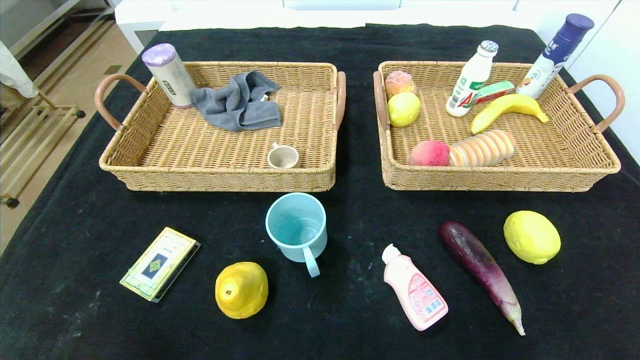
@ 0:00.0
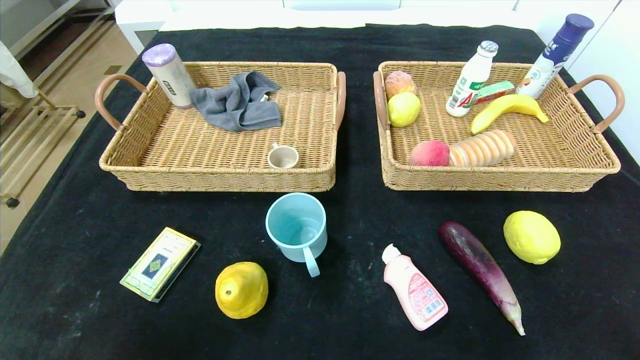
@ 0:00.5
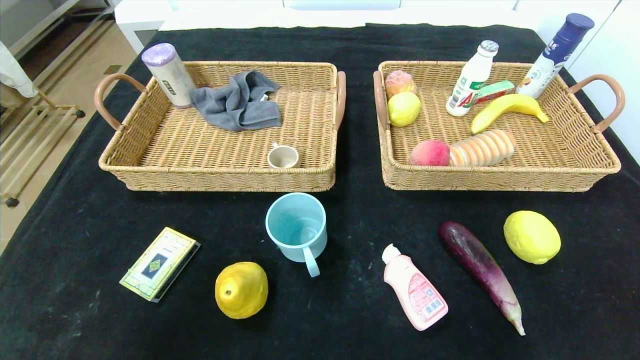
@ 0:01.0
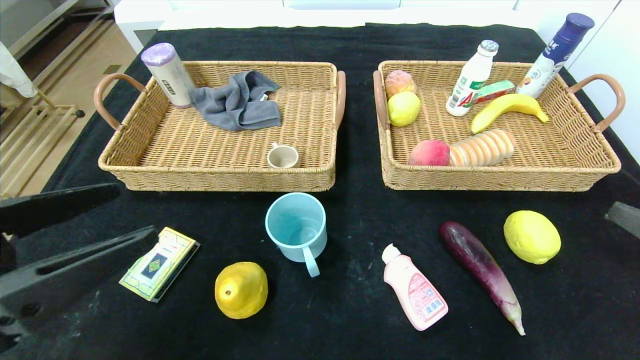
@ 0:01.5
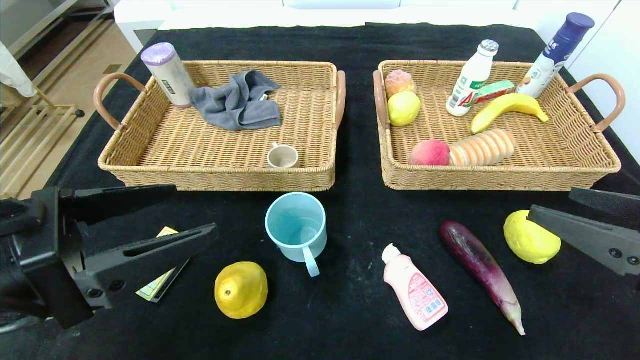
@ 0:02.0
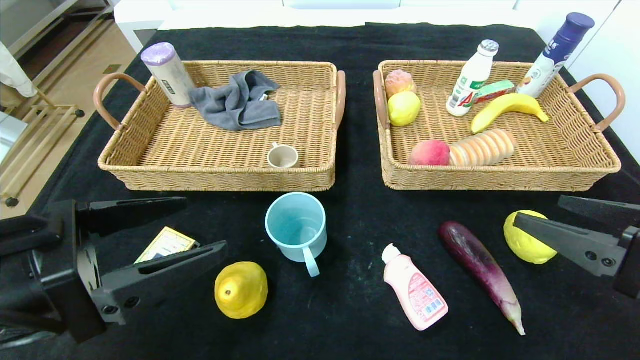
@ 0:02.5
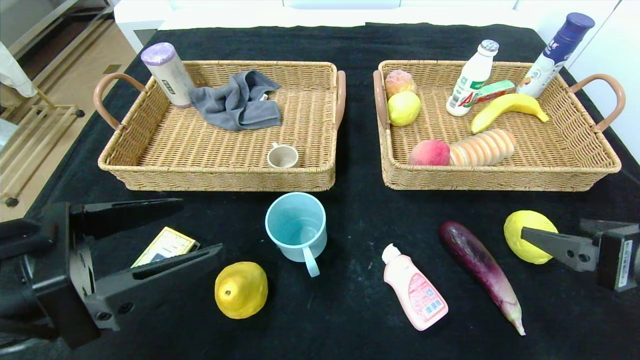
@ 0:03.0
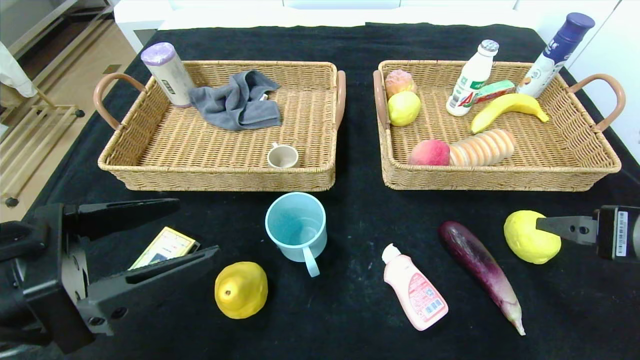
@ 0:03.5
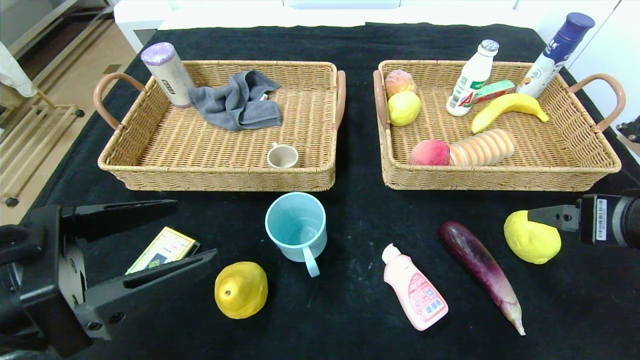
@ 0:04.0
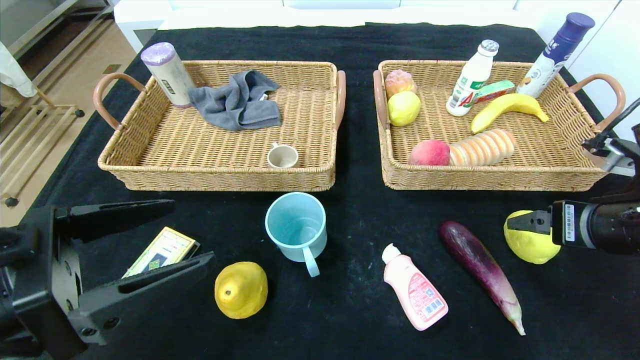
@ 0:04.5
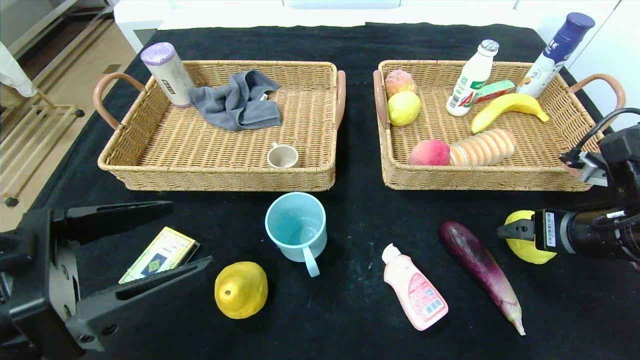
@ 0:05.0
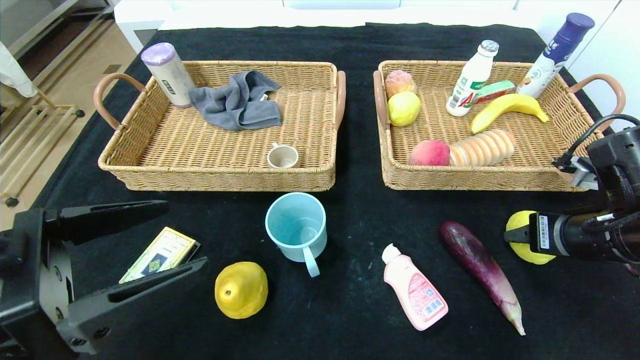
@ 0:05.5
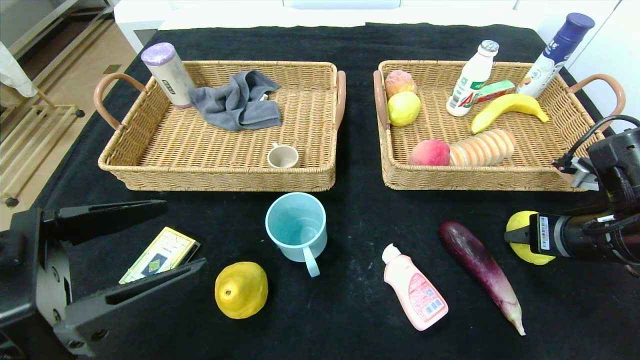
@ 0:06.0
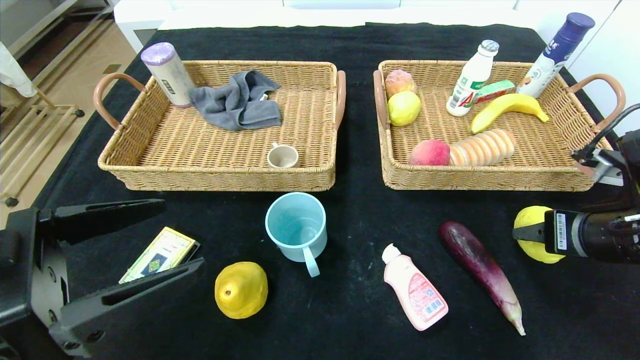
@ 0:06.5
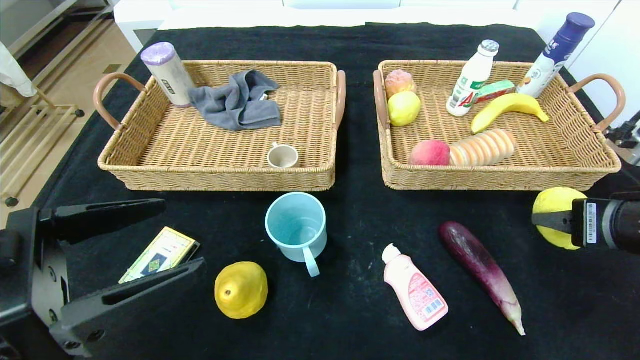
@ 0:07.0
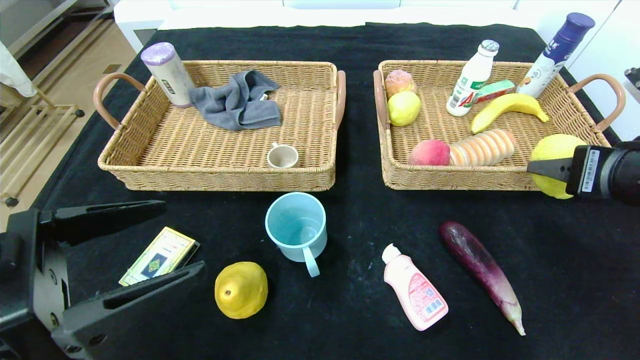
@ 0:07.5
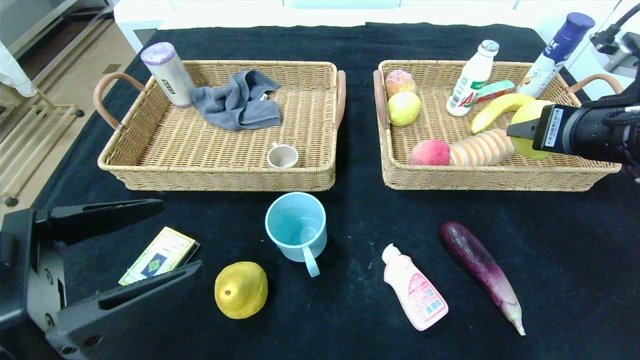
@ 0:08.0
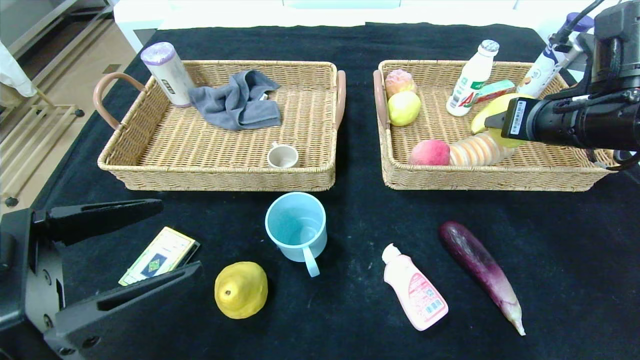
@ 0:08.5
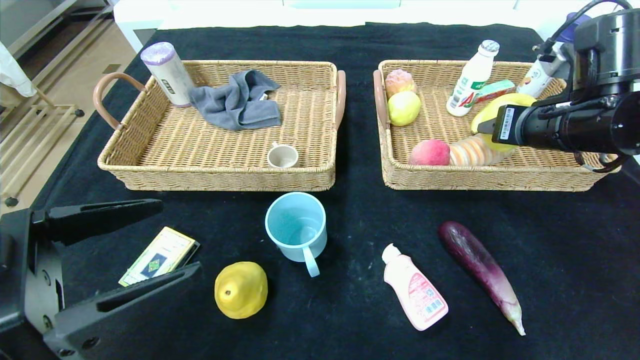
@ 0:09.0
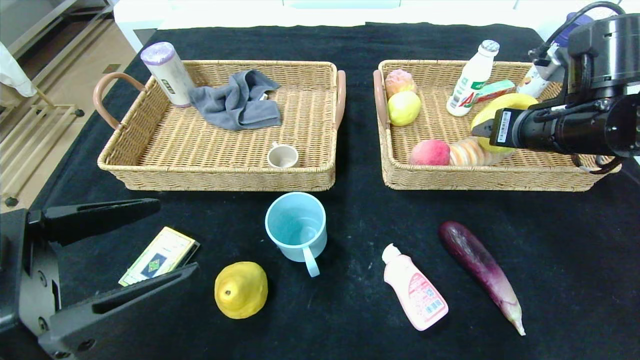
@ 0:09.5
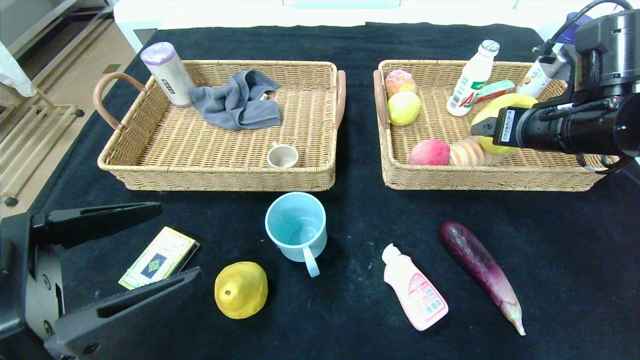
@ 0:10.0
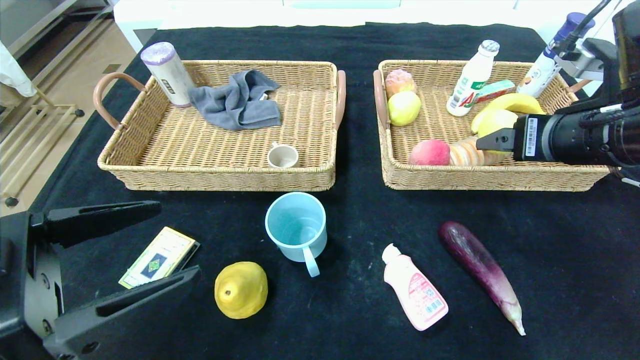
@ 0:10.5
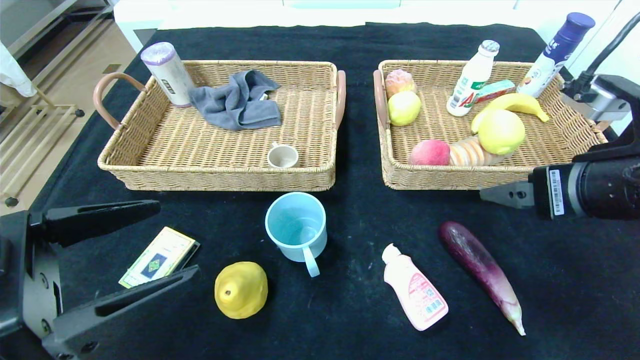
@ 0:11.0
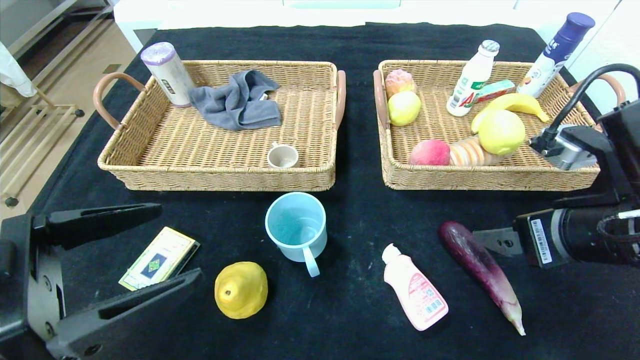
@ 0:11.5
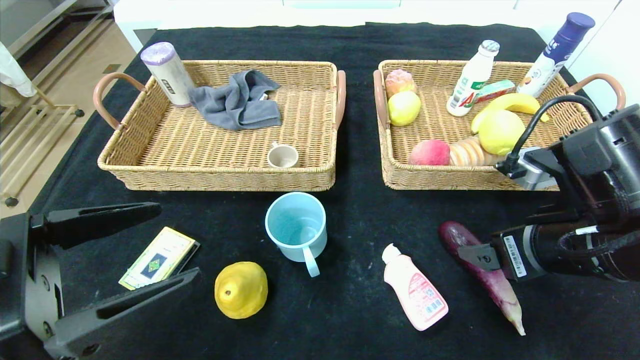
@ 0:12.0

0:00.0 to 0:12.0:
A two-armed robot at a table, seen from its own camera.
Step, 0:00.0 to 0:10.5: Grasp the lemon and put it in the right basket.
0:00.0 to 0:02.0: Both grippers move upward and forward, approximately 25 cm.
0:02.0 to 0:04.0: The right gripper is displaced forward by approximately 5 cm.
0:04.0 to 0:06.0: The right gripper moves some 5 cm, and closes its fingers.
0:06.0 to 0:08.0: The right gripper goes roughly 10 cm upward.
0:08.0 to 0:10.0: The right gripper is displaced forward by about 5 cm, and opens.
0:10.0 to 0:12.0: The right gripper goes about 15 cm backward and downward.

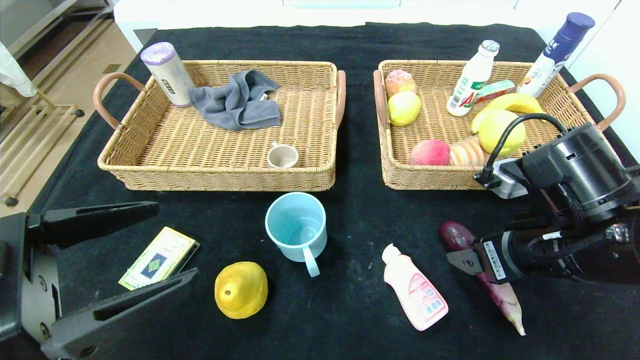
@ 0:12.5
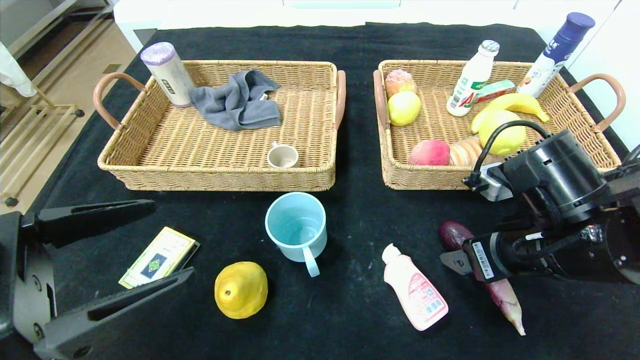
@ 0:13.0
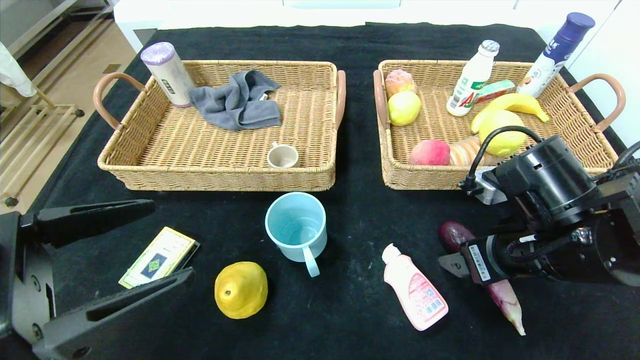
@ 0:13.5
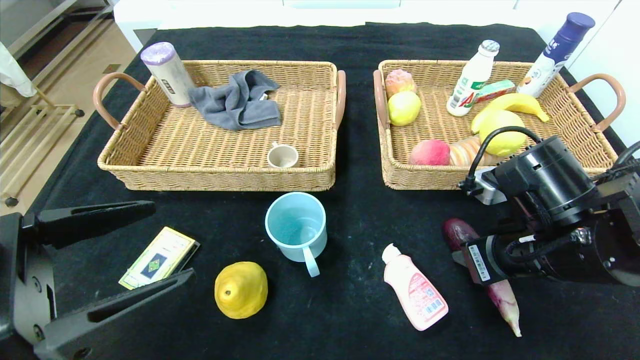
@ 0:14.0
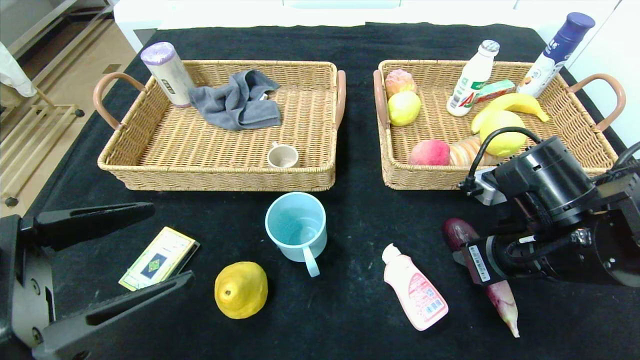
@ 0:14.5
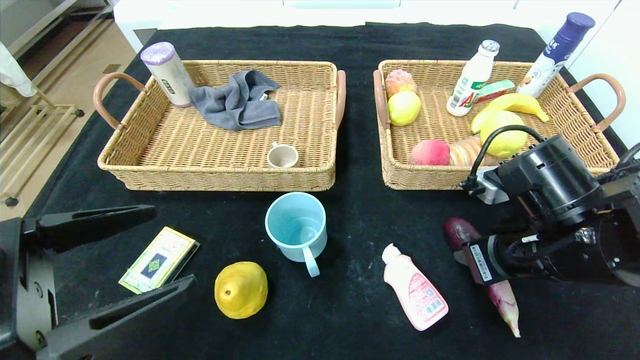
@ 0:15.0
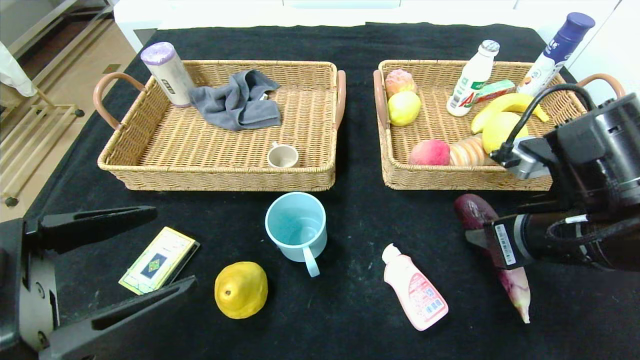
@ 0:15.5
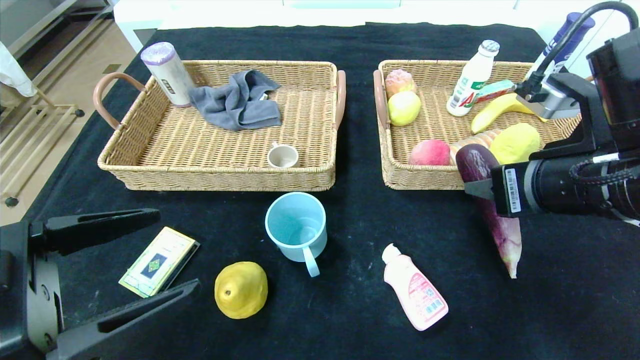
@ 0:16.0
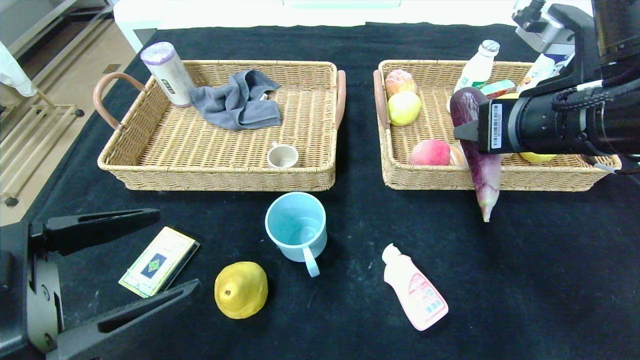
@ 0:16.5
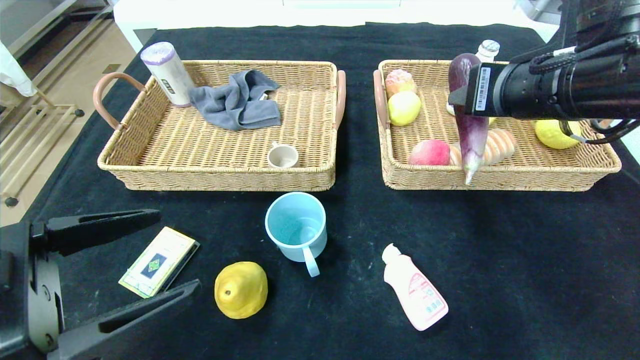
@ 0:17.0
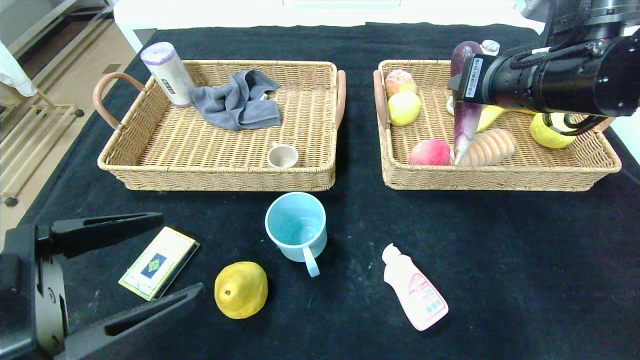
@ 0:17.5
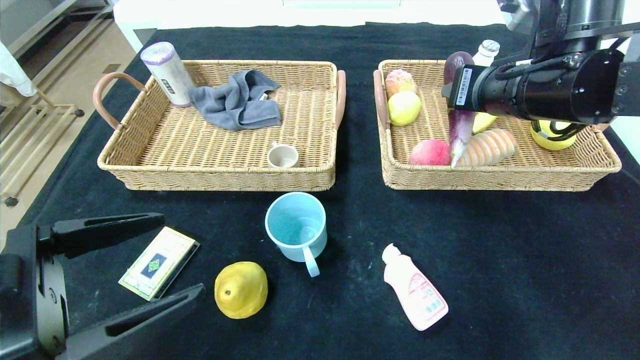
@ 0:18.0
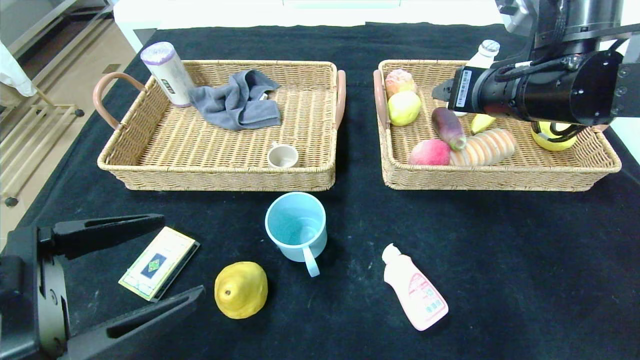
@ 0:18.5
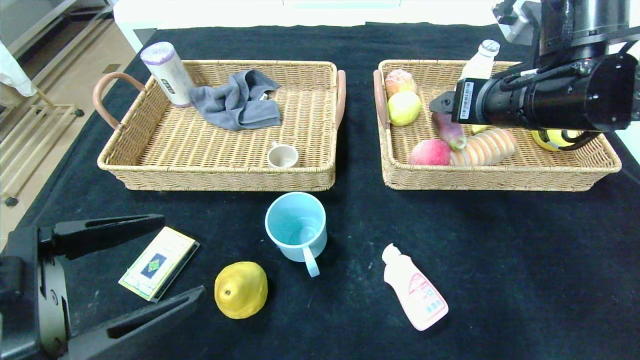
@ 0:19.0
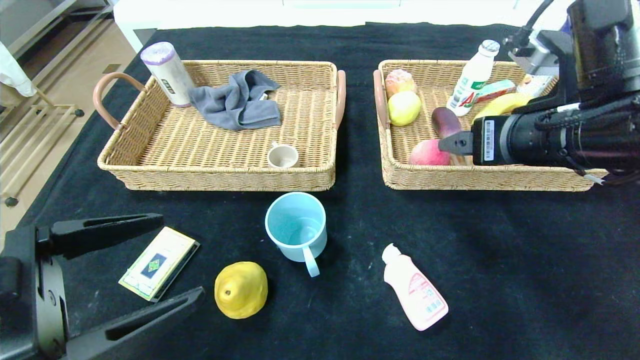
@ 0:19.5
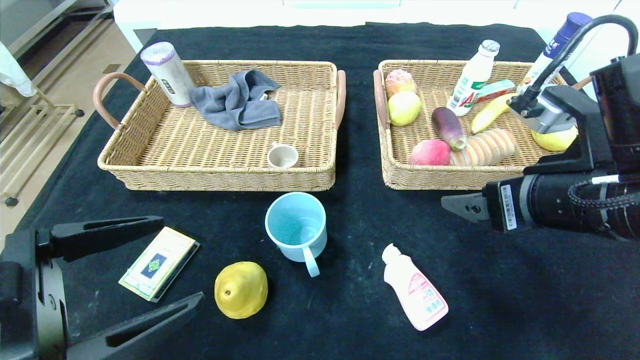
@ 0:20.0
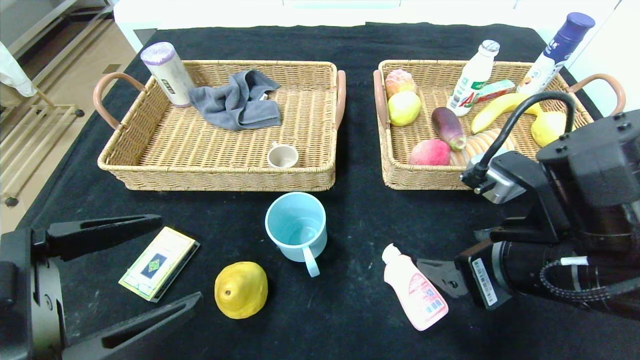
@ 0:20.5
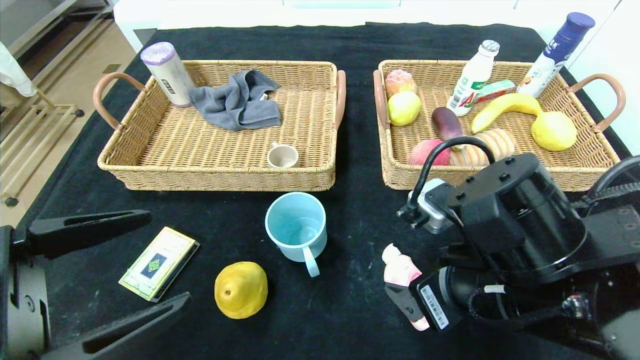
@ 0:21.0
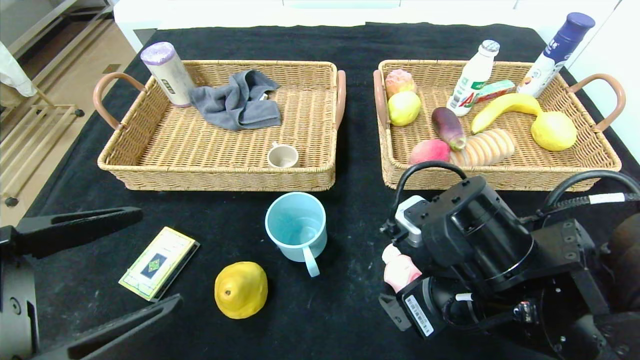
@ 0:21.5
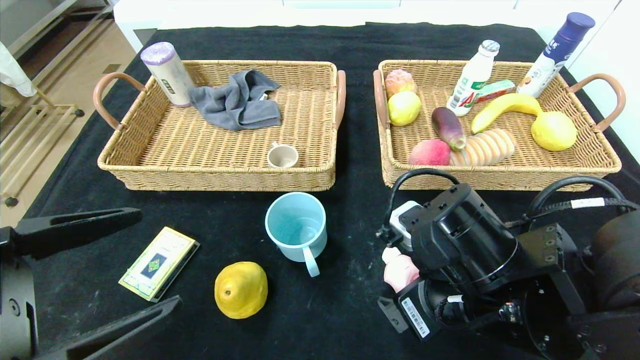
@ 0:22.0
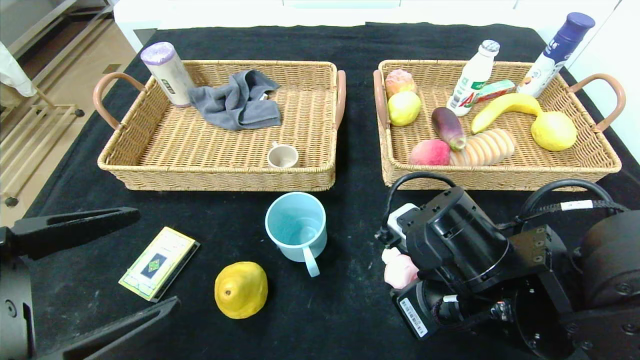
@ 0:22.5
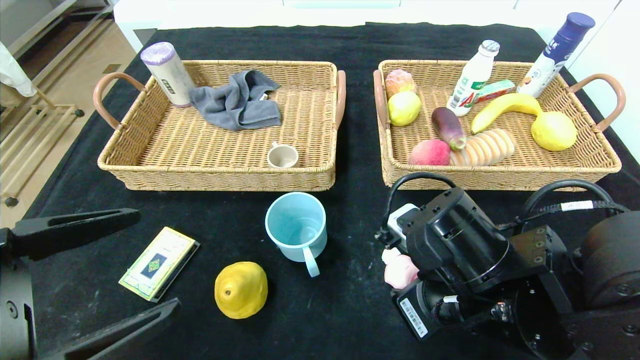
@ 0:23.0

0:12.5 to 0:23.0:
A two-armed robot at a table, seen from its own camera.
Step, 0:12.5 to 0:18.5: Grasp the eggplant and put it in the right basket.
0:12.5 to 0:14.5: The right gripper closes its fingers.
0:14.5 to 0:16.5: The right gripper moves upward, roughly 10 cm.
0:16.5 to 0:19.0: The right gripper is displaced forward by roughly 5 cm, and opens its fingers.
0:19.0 to 0:21.0: The right gripper shifts some 20 cm downward, backward and to the left.
0:21.0 to 0:23.0: The right gripper closes its fingers.
